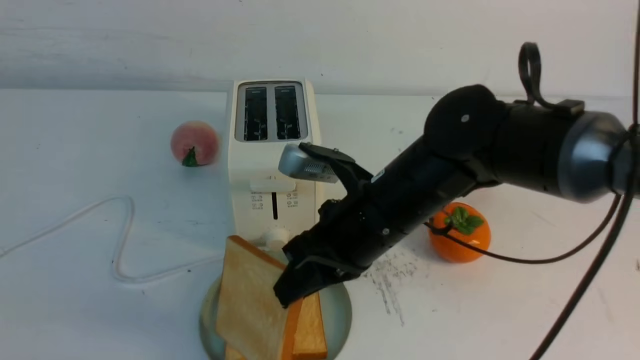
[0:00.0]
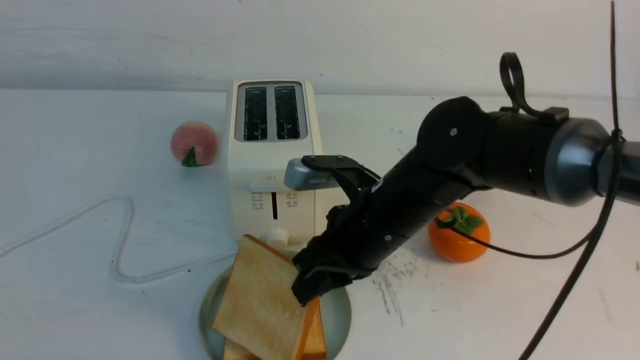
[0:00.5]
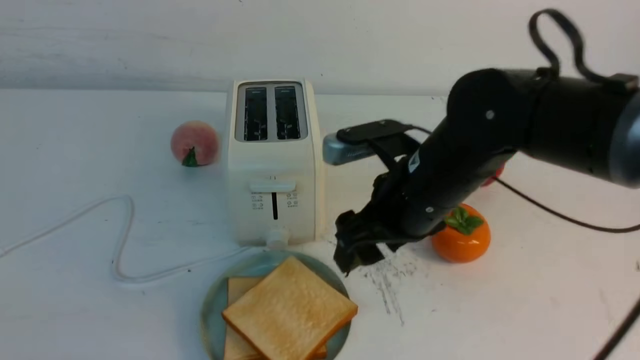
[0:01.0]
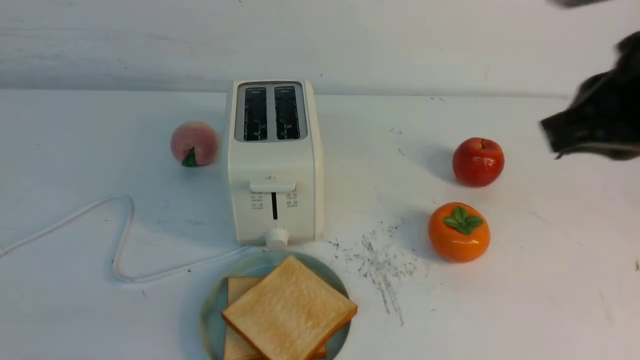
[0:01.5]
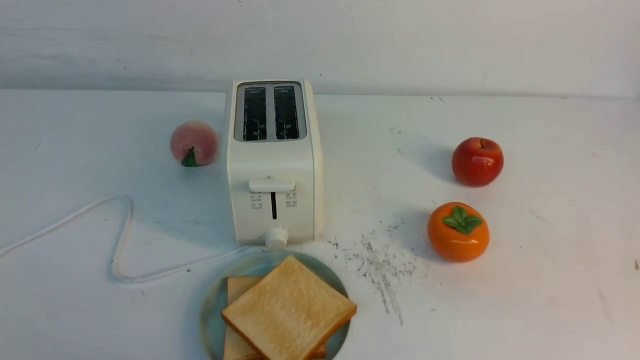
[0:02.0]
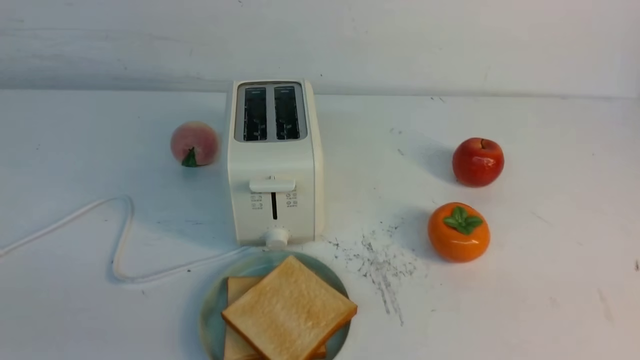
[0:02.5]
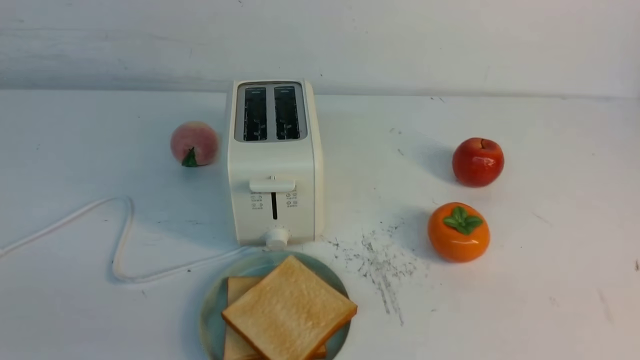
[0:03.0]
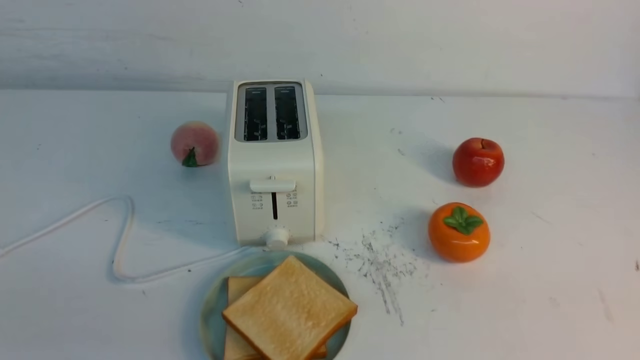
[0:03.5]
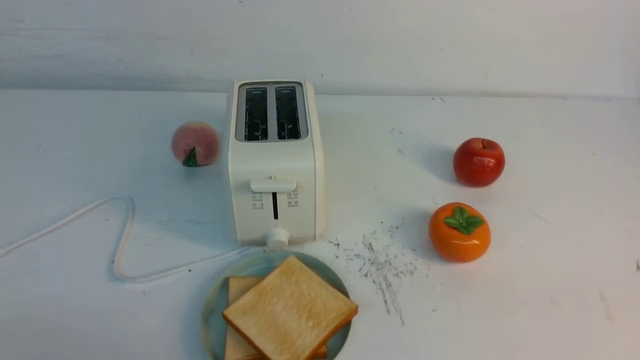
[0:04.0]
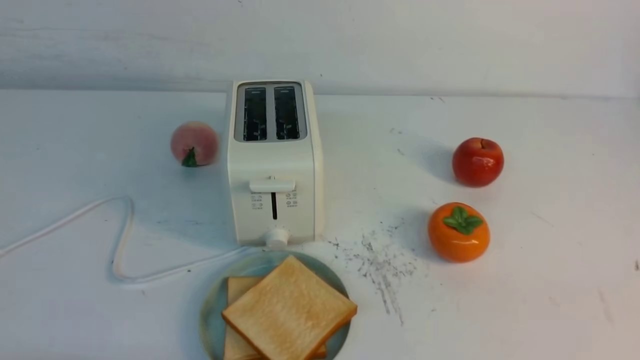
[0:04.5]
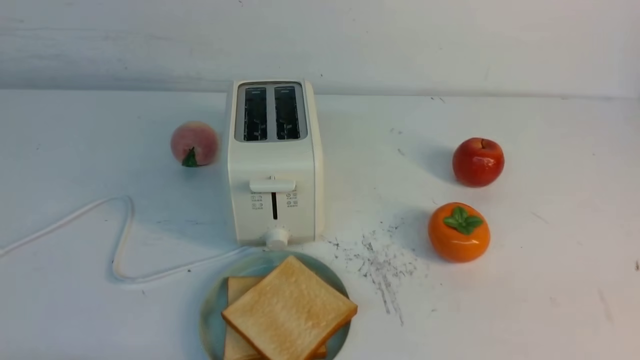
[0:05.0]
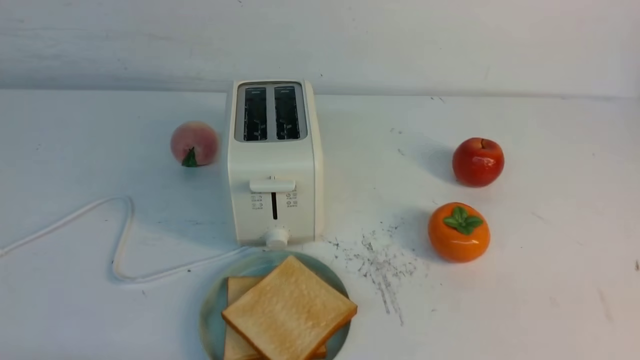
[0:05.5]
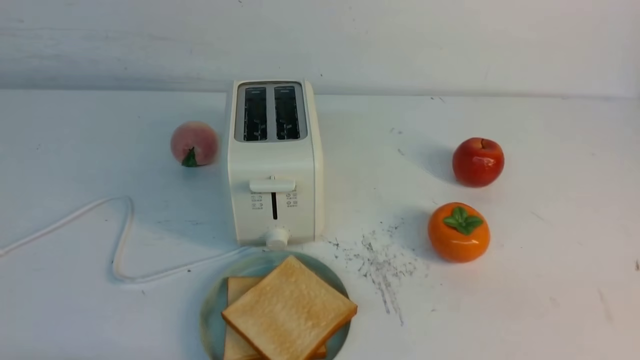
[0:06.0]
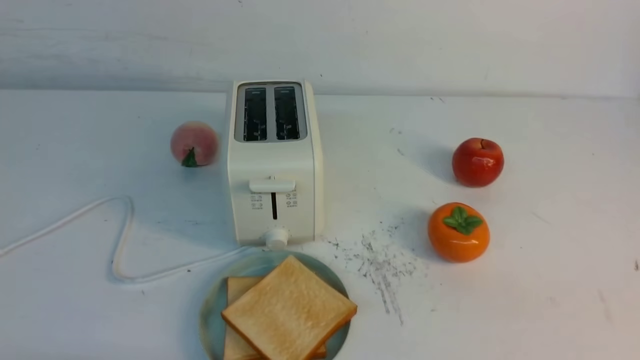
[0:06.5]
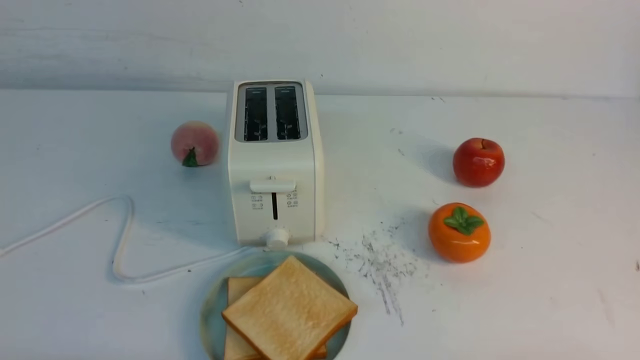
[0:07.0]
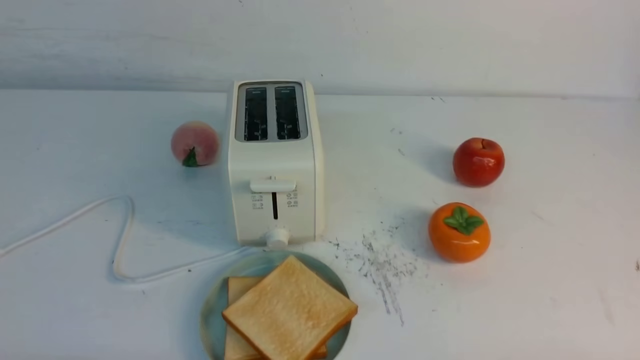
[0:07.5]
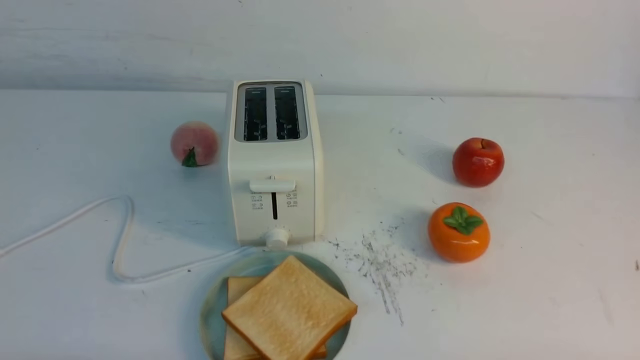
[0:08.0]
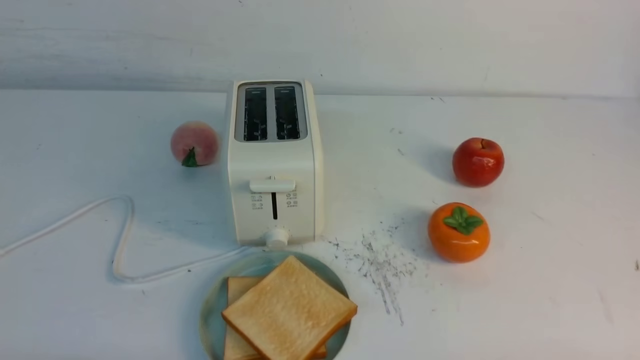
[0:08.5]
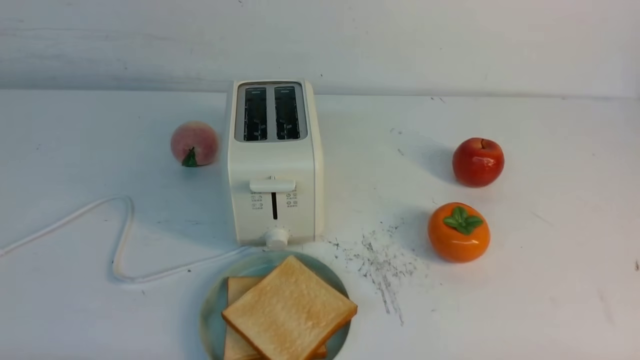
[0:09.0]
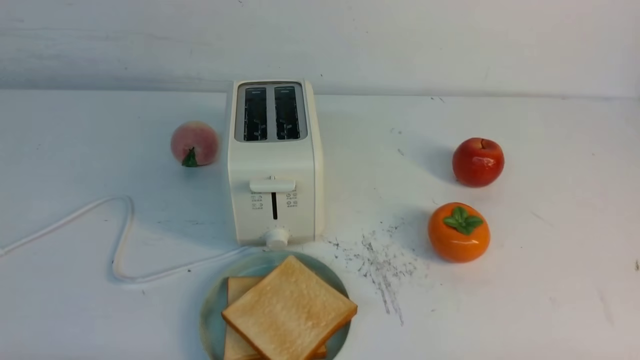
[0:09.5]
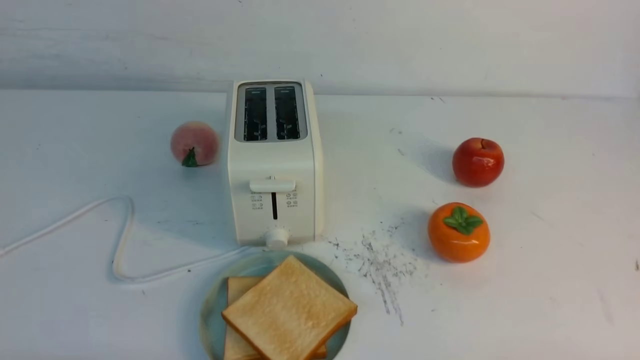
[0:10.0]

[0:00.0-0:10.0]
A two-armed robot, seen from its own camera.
Task of the whole recording: take toasted bread from bread machine on white table place on plate.
0:00.0 to 0:02.0: The right gripper heads to the right, backward and upward, covering some 35 cm, and opens and closes again.
0:08.0 to 0:10.0: Both grippers stay about where they are.

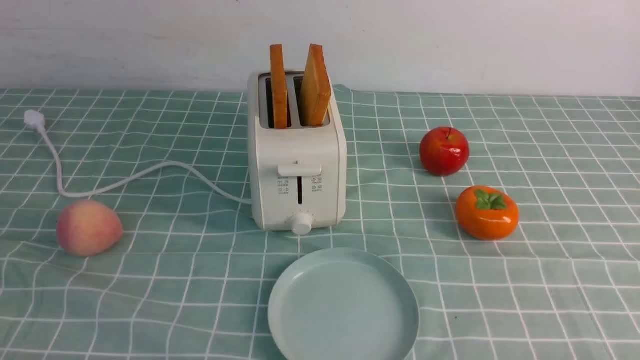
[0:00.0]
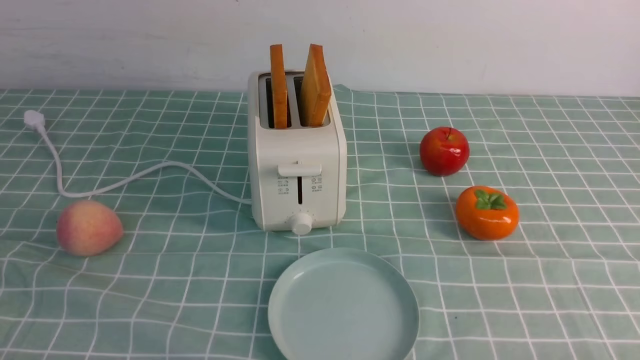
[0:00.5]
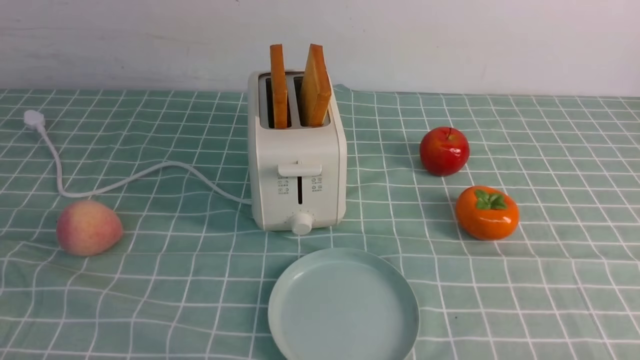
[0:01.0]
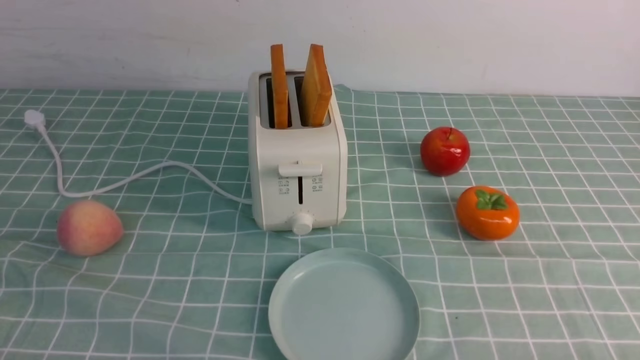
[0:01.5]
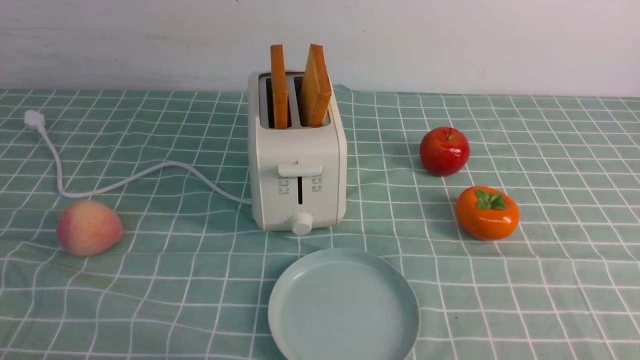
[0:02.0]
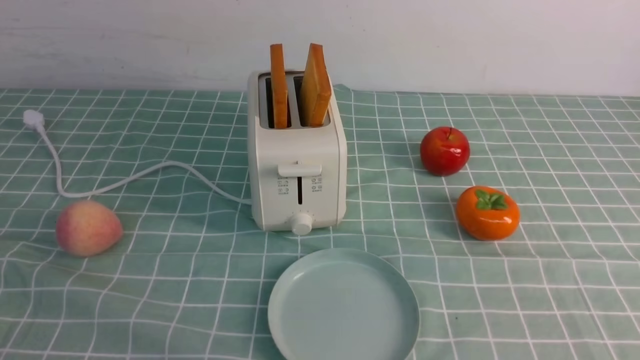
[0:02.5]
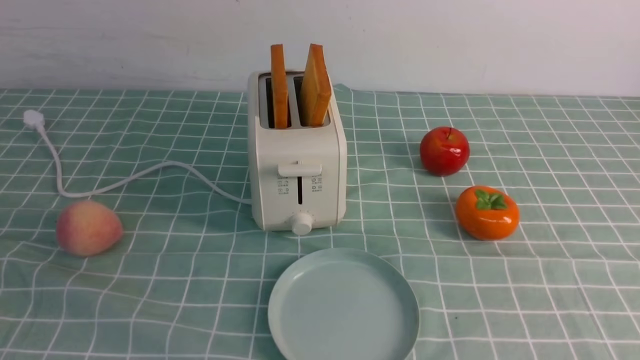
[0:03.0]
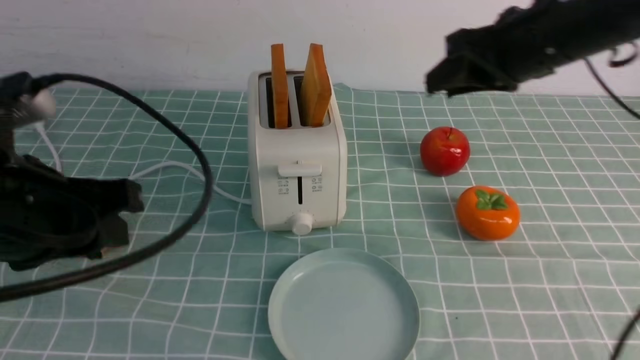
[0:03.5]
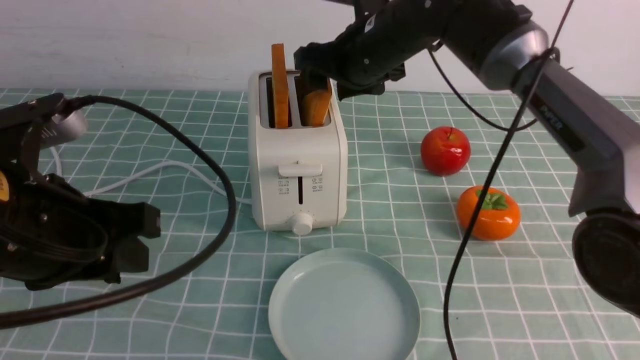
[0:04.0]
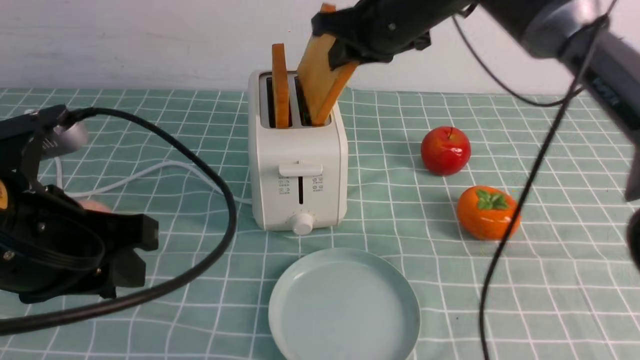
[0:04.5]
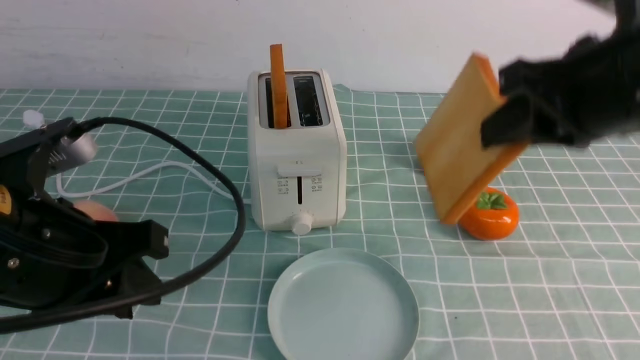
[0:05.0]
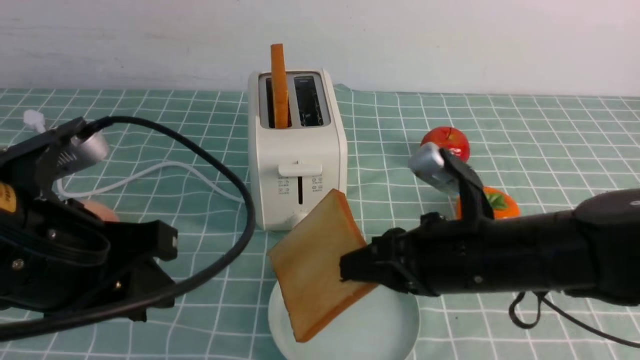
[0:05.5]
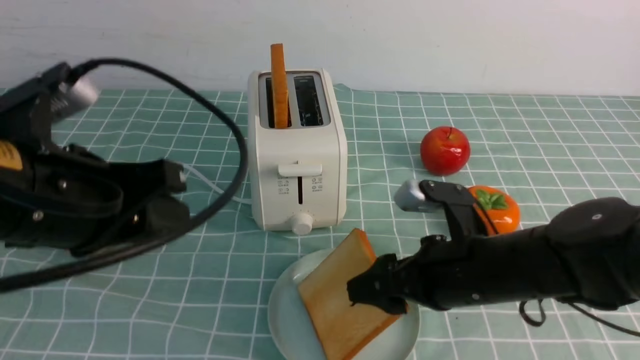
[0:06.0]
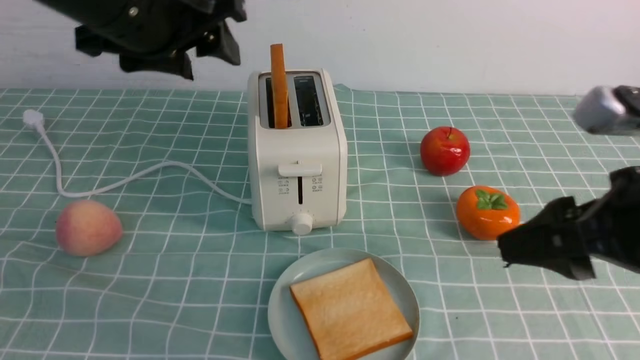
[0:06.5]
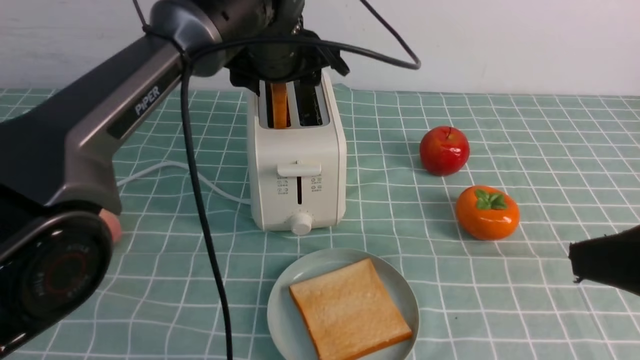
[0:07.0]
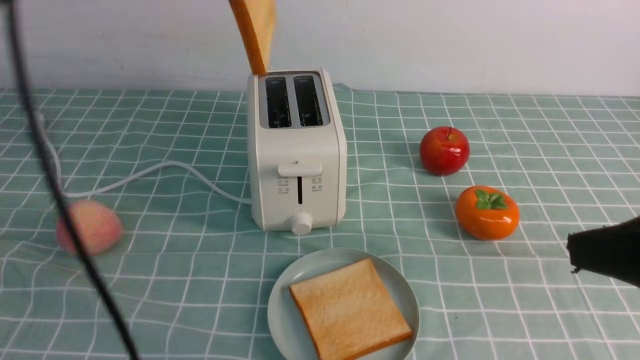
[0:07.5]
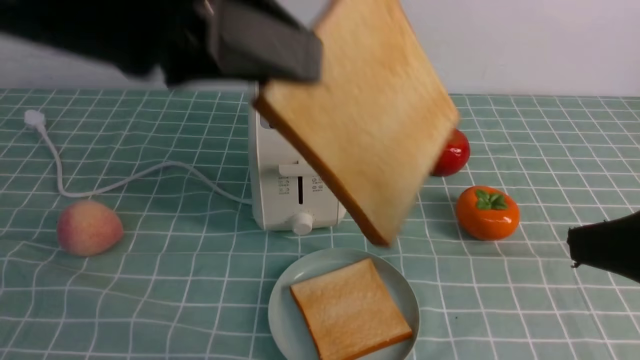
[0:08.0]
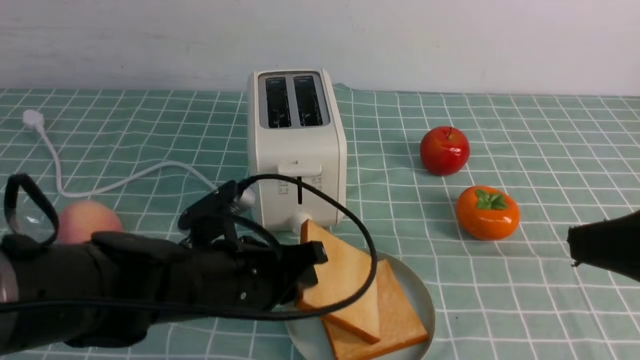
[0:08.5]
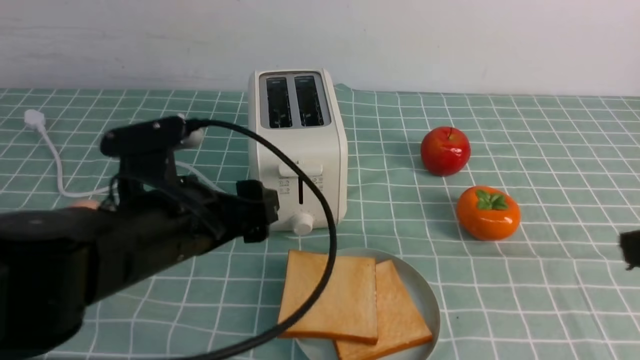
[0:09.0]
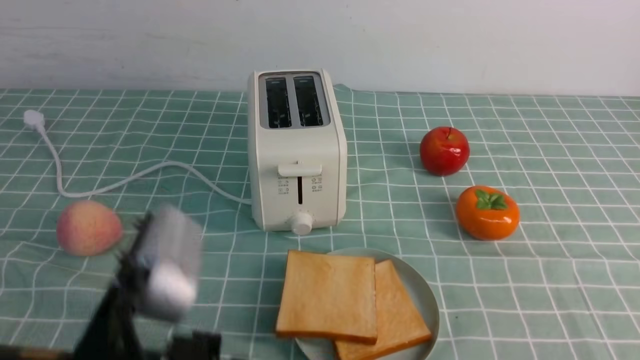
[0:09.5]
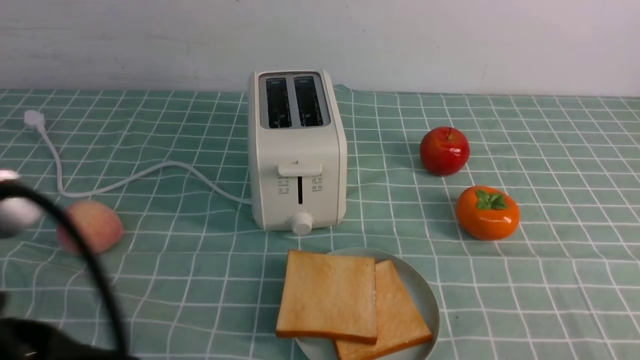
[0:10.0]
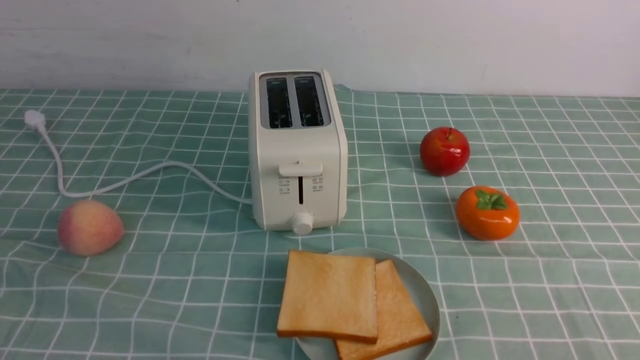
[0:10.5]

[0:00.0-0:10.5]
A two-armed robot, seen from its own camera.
Task of the whole recording: take toasted bread from bread machine on blue coffee table place on plate.
Step, 0:00.0 to 0:04.5: use the right arm to take out a slice of bread.
Step, 0:05.0 to 0:06.0: use the right arm to put a slice of bread into the plate.
Step, 0:06.5 to 0:07.5: use the left arm to take out a slice of bread.
Step, 0:08.0 to 0:09.0: use the left arm to put a slice of bread into the empty plate.
0:02.0 to 0:04.0: The left gripper shifts some 20 cm forward, upward and to the right. The right gripper goes roughly 50 cm forward and to the left, and opens.
0:04.0 to 0:06.5: The right gripper travels backward and to the right by roughly 30 cm, and closes, then opens again, while the left gripper travels forward, upward and to the right by some 20 cm, and opens its fingers.
0:06.5 to 0:08.5: The right gripper heads backward, covering roughly 5 cm, while the left gripper moves up and down over approximately 30 cm, changing direction 2 times, and closes.
0:08.5 to 0:10.5: The left gripper heads backward and to the left, covering roughly 30 cm, and opens, then closes once more. The right gripper shifts approximately 15 cm downward and backward, and closes up.
